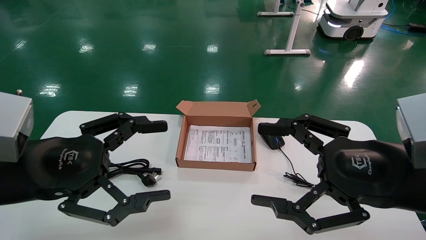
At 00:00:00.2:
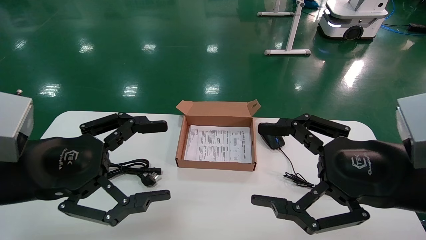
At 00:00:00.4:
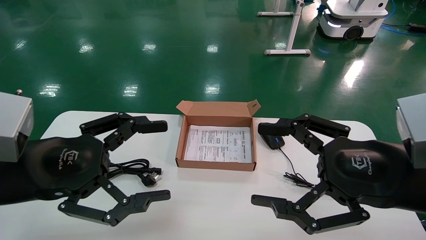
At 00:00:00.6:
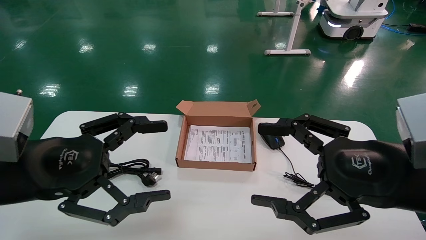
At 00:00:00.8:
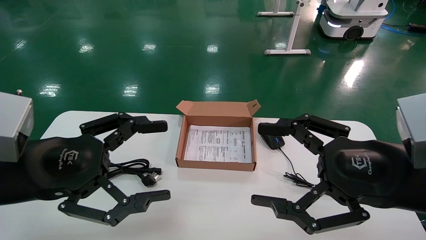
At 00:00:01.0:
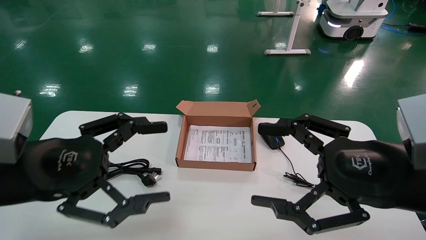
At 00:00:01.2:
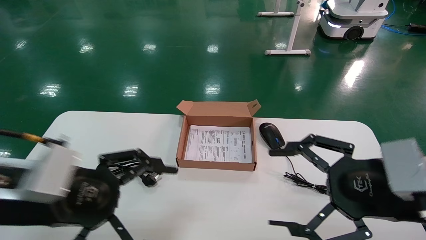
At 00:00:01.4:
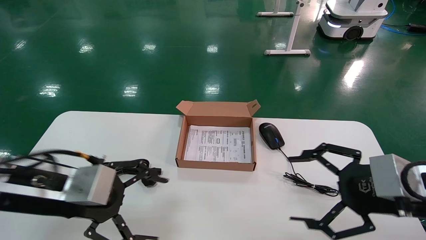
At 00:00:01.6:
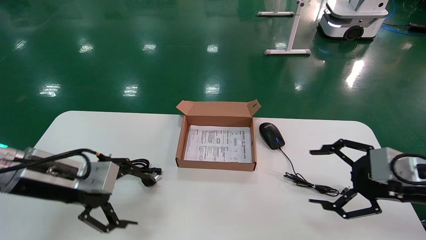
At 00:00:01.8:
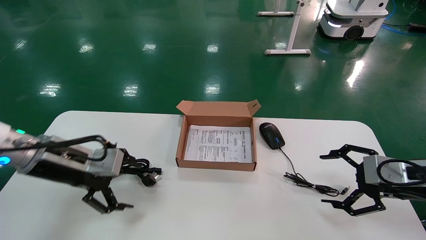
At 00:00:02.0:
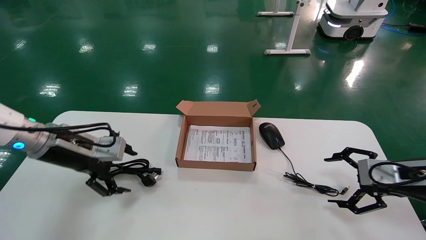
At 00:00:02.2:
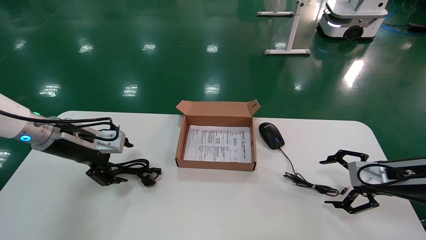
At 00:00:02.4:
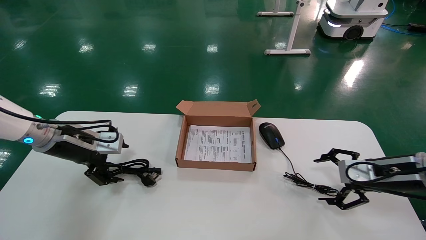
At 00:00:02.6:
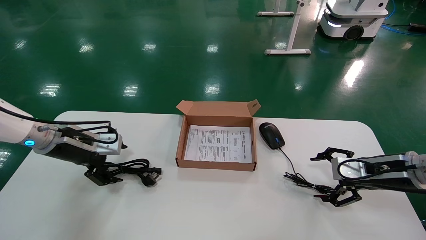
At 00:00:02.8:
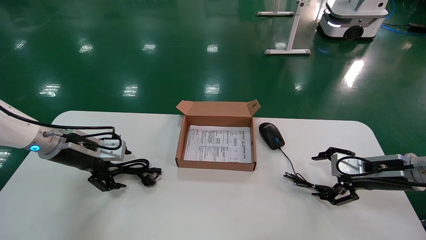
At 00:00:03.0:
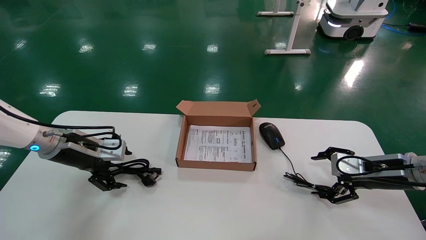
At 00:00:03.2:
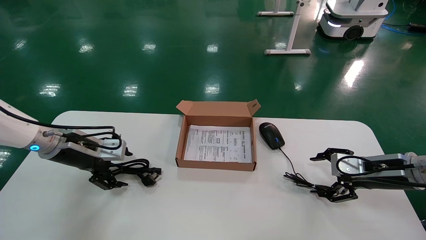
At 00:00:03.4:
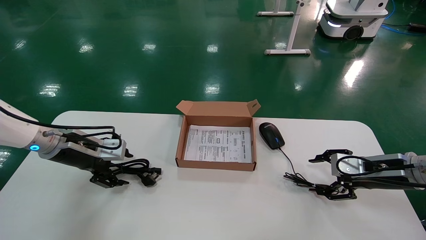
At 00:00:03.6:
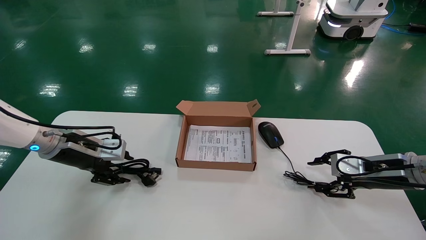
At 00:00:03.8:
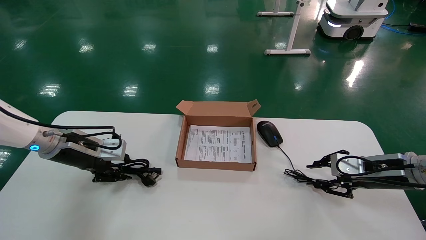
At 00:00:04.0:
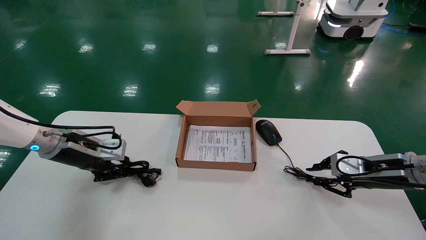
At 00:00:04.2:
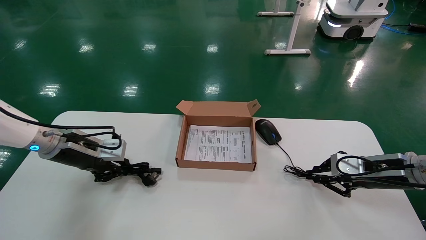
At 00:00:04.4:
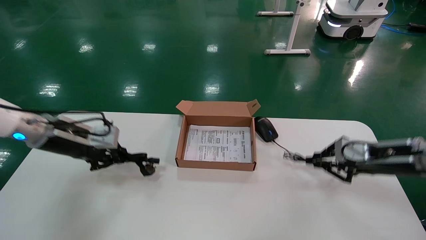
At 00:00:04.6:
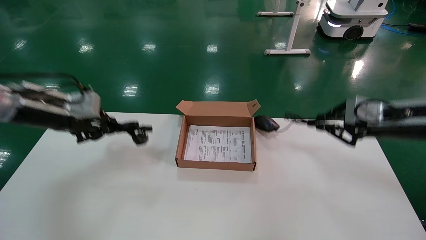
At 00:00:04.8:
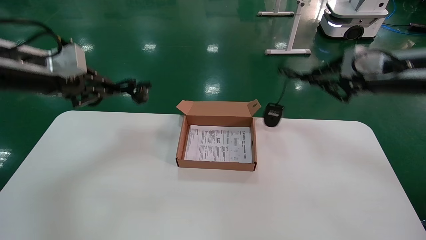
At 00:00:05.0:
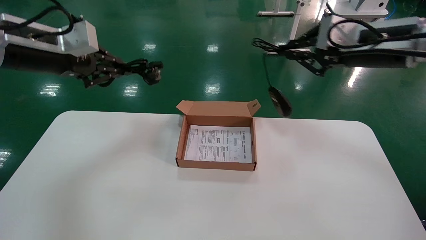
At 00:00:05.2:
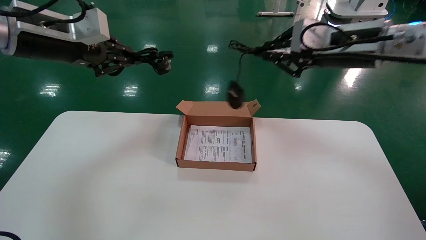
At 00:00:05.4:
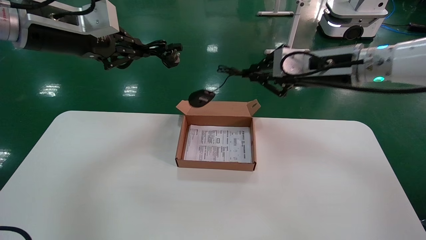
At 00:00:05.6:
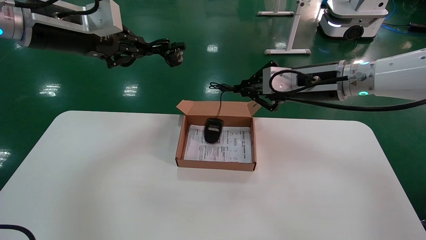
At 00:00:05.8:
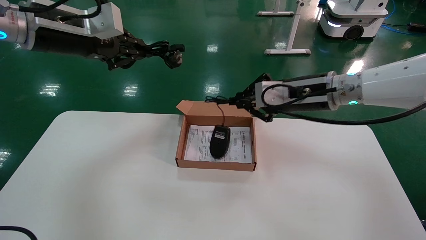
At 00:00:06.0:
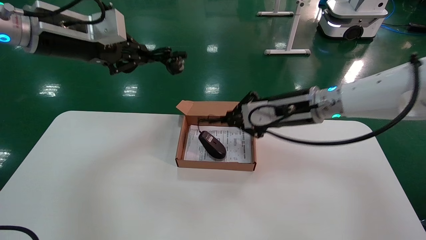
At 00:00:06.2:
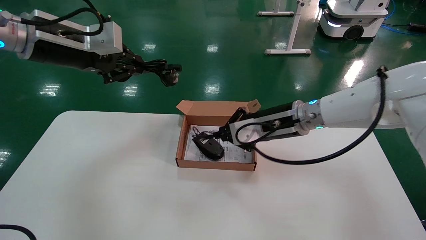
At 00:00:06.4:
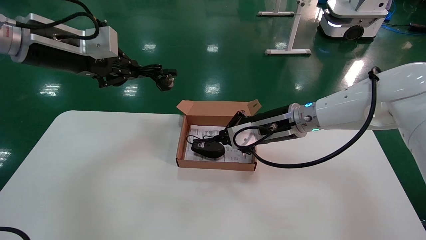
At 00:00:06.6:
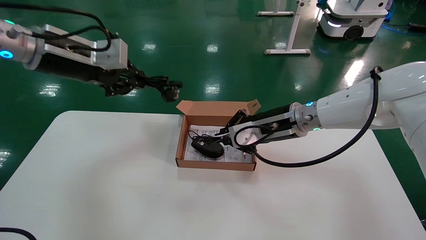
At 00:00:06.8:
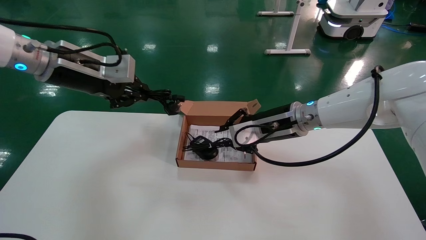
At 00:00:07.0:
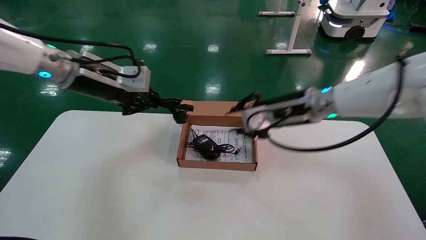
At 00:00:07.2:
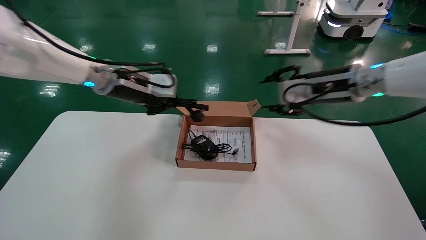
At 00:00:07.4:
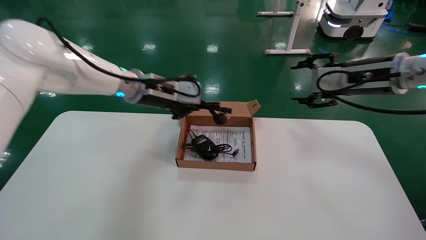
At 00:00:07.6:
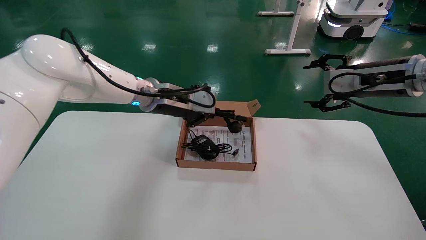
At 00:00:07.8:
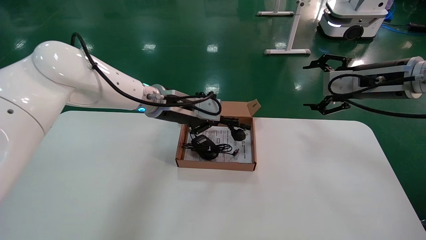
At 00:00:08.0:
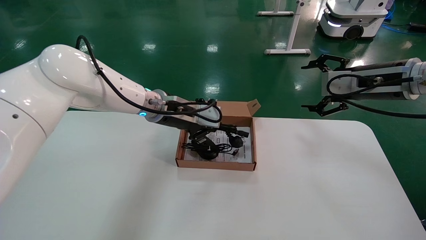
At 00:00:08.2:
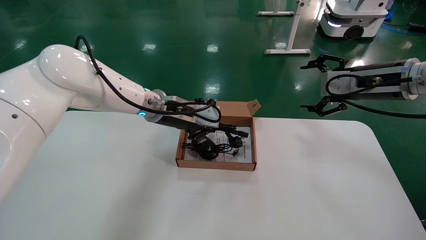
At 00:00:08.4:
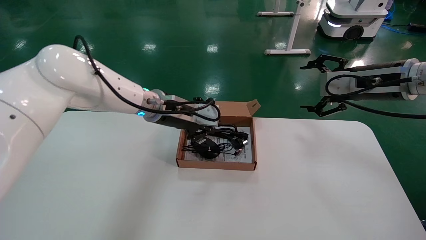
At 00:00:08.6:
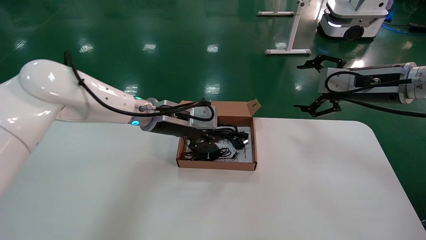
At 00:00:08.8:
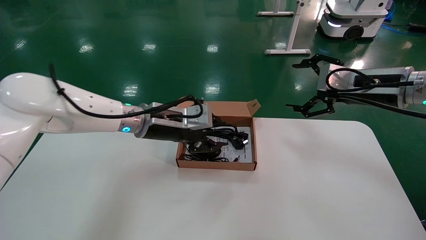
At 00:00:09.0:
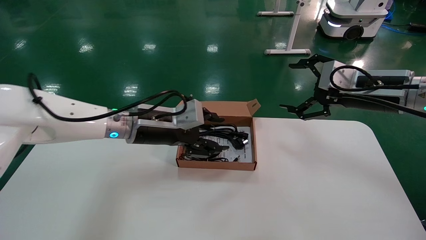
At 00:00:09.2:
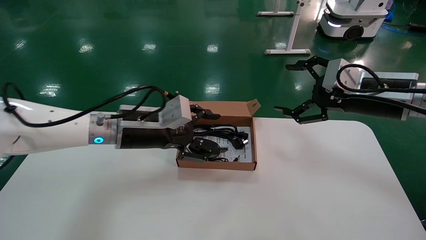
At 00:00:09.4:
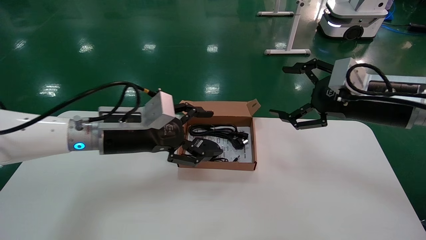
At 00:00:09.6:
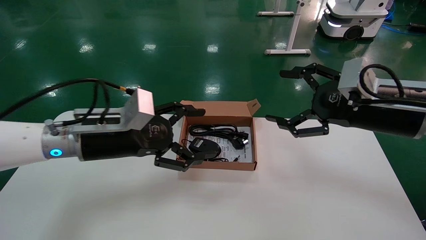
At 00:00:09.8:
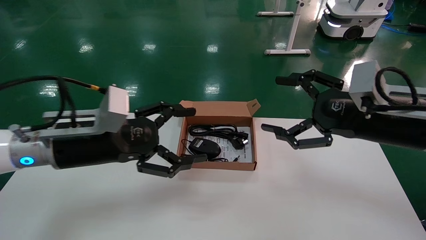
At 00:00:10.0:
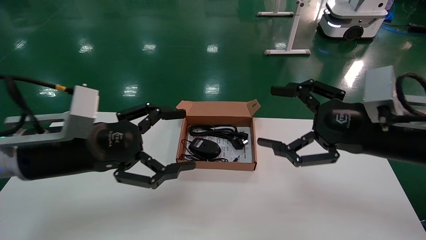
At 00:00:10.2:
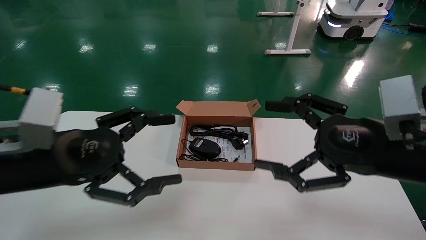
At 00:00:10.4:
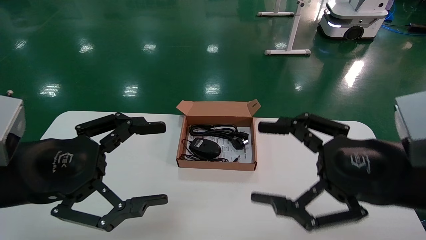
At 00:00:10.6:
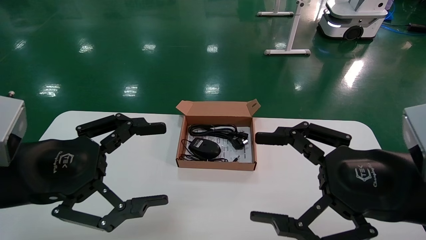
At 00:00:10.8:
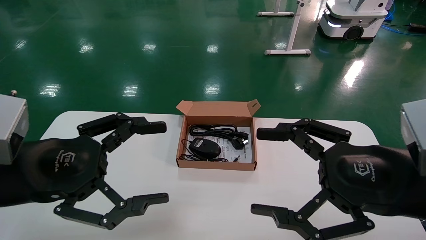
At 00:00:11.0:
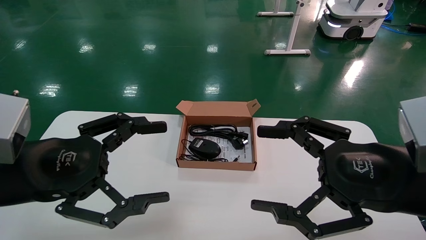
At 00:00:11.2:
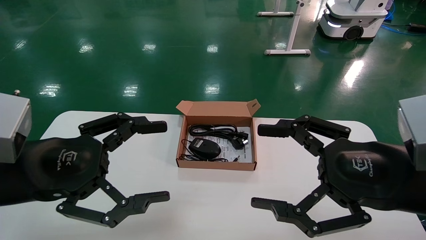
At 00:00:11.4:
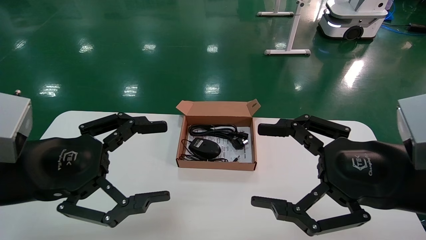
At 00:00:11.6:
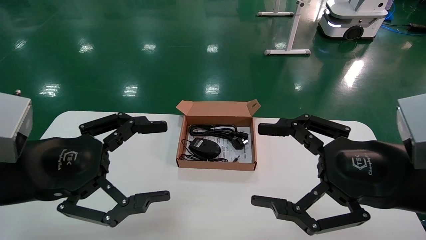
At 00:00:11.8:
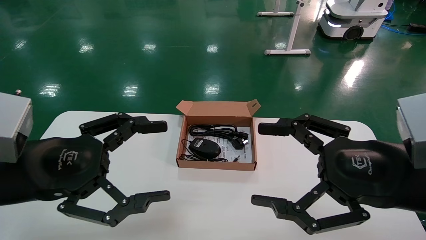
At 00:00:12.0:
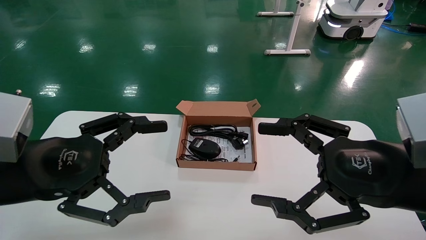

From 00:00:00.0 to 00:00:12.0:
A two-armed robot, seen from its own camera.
Step, from 00:00:01.4 to 00:00:04.4: Grab and lift both the mouse and power cord from the accessory packaging area at the same time.
Step, from 00:00:04.6 to 00:00:09.0: Place the mouse and power cord into the box.
From 00:00:00.0 to 00:00:01.6: The right gripper travels to the right, forward and downward by some 15 cm, while the left gripper is displaced forward by roughly 10 cm.
From 00:00:01.6 to 00:00:03.0: The right gripper heads forward and downward, covering about 10 cm. The left gripper is displaced forward by some 10 cm.
From 00:00:03.0 to 00:00:04.4: Both grippers move upward, about 5 cm. The right gripper closes, while the left gripper closes.
From 00:00:04.4 to 00:00:06.0: The right gripper moves to the left, some 20 cm; the left gripper is displaced upward by about 15 cm.
From 00:00:06.0 to 00:00:07.6: The right gripper shifts approximately 15 cm to the right and upward, and opens its fingers; the left gripper moves to the right, downward and forward, approximately 20 cm.
From 00:00:07.6 to 00:00:09.0: The left gripper travels backward and downward by approximately 10 cm, and opens up.
From 00:00:09.0 to 00:00:10.4: The right gripper travels backward by some 15 cm, while the left gripper travels backward and to the left by approximately 20 cm, and opens up.
From 00:00:10.4 to 00:00:12.0: The grippers stay close to where they were, moving slightly.

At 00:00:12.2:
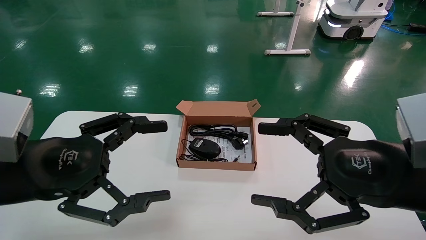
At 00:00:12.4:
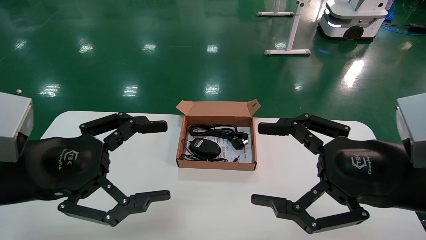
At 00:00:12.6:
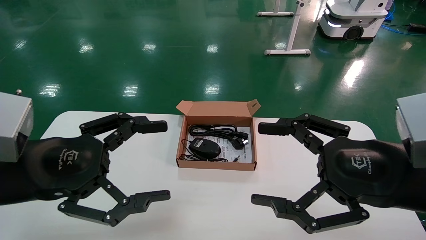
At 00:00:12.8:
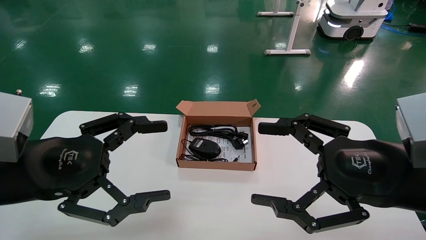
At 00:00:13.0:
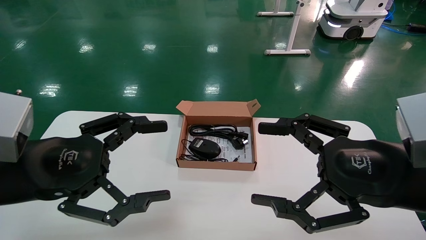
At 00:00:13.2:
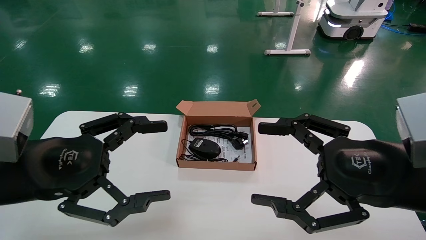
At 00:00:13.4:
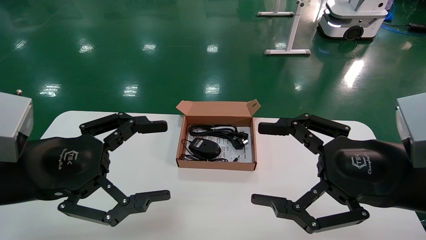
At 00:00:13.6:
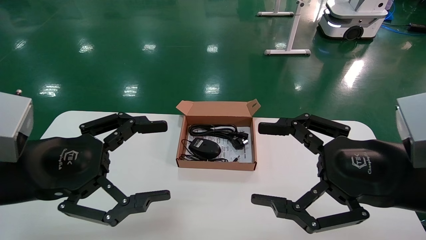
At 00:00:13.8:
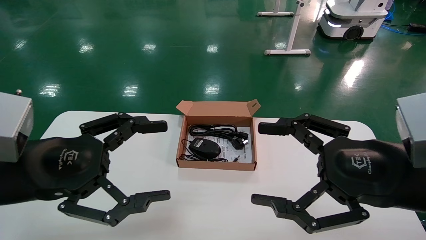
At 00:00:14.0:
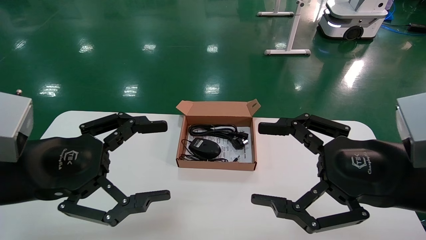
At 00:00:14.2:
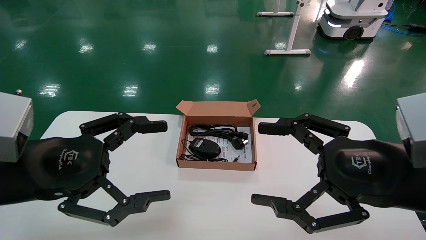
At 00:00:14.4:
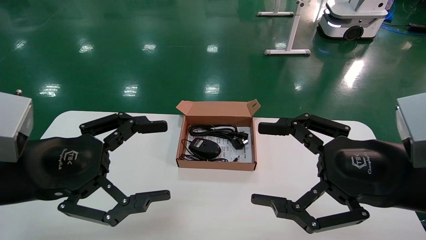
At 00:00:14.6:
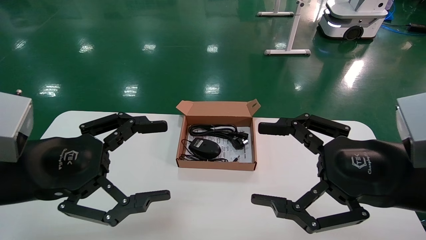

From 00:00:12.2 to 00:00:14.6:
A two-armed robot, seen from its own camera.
From 00:00:12.2 to 00:00:14.6: The two grippers keep their place.
